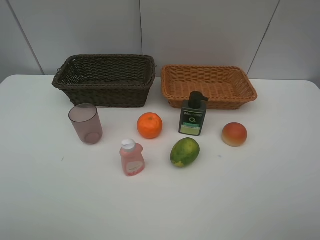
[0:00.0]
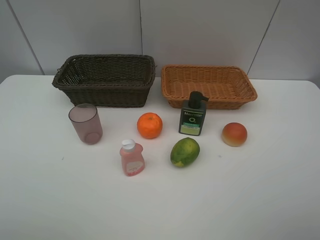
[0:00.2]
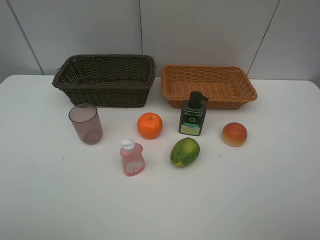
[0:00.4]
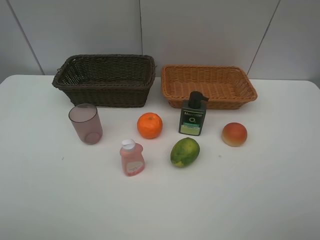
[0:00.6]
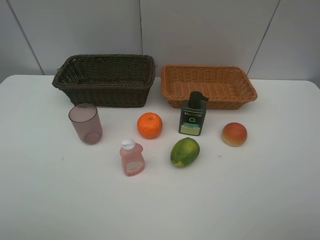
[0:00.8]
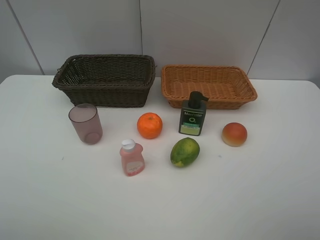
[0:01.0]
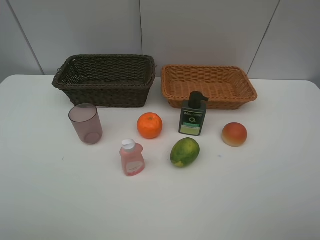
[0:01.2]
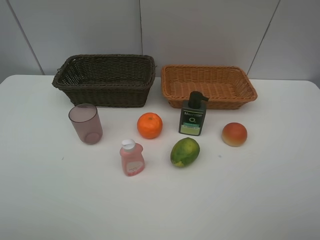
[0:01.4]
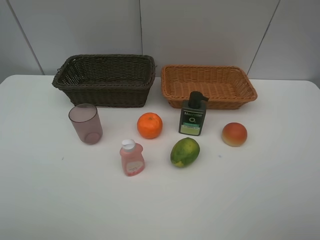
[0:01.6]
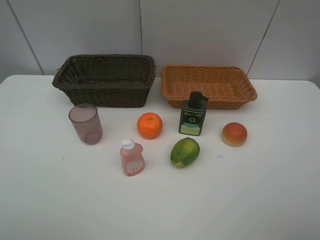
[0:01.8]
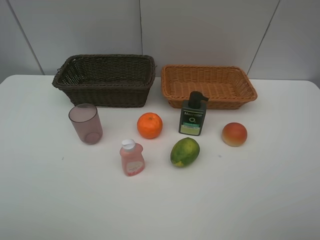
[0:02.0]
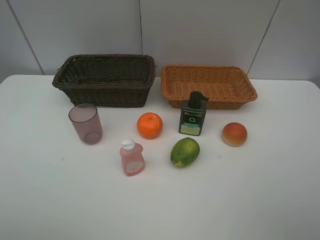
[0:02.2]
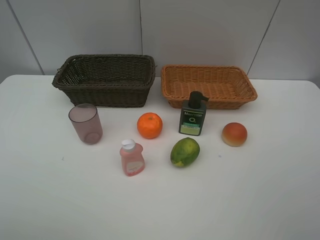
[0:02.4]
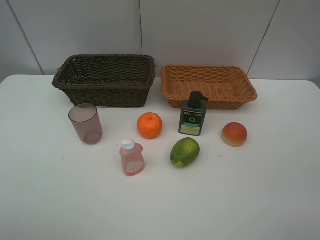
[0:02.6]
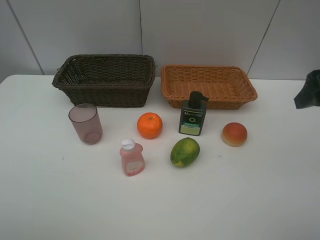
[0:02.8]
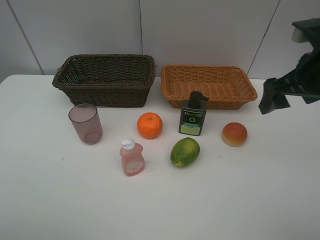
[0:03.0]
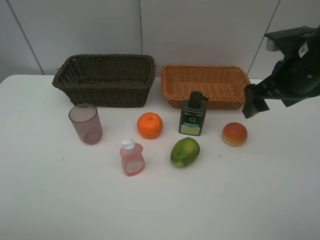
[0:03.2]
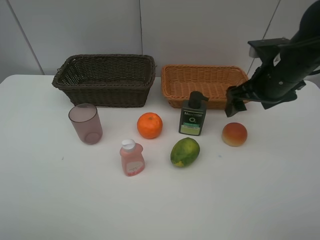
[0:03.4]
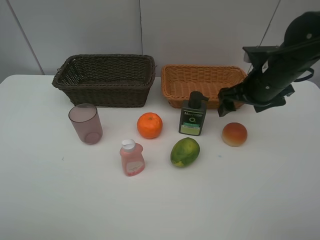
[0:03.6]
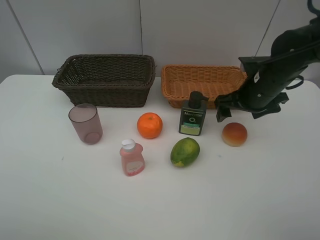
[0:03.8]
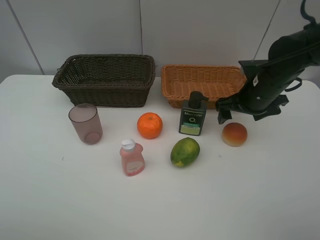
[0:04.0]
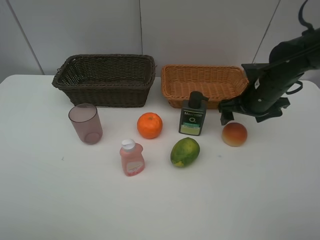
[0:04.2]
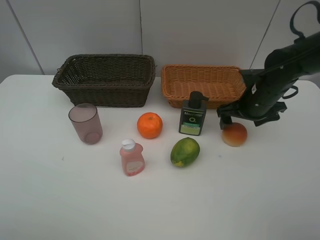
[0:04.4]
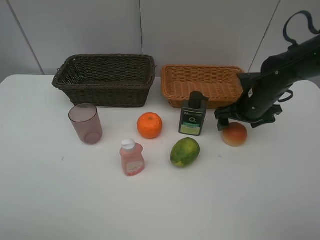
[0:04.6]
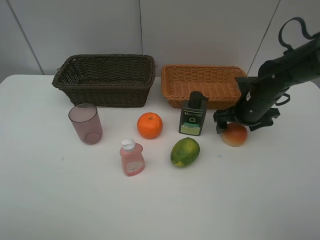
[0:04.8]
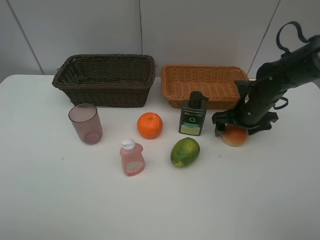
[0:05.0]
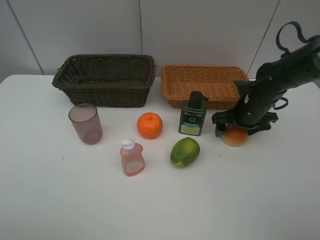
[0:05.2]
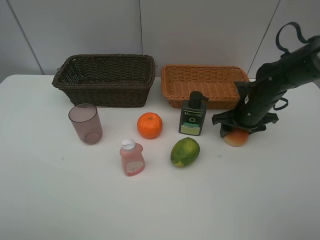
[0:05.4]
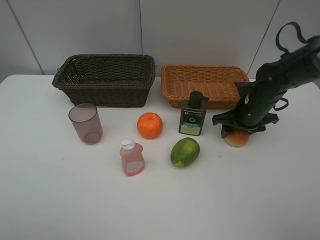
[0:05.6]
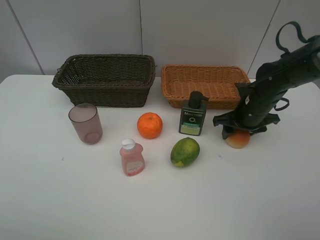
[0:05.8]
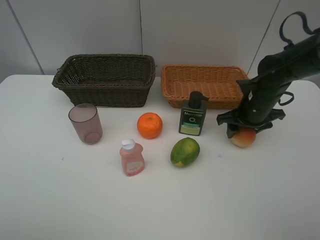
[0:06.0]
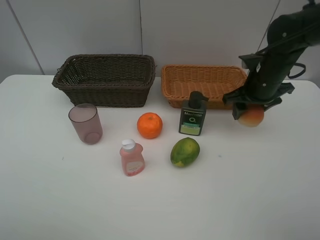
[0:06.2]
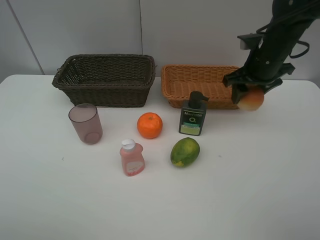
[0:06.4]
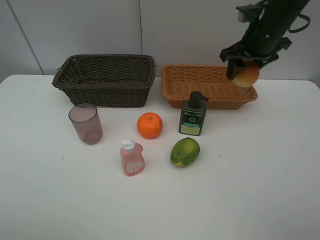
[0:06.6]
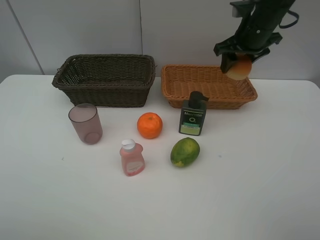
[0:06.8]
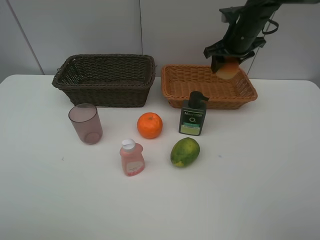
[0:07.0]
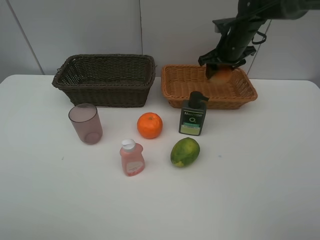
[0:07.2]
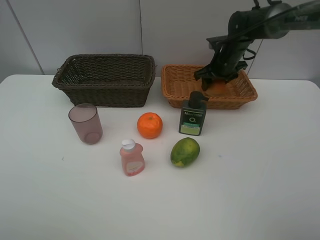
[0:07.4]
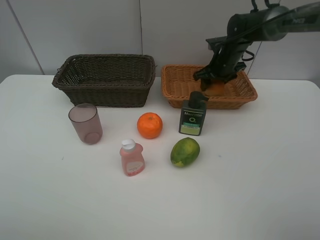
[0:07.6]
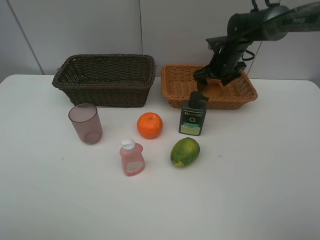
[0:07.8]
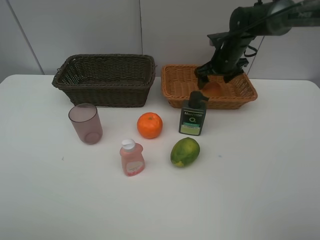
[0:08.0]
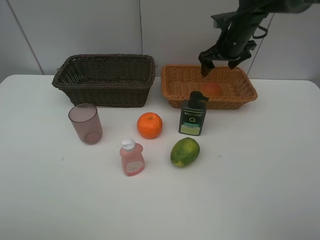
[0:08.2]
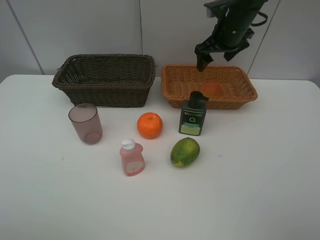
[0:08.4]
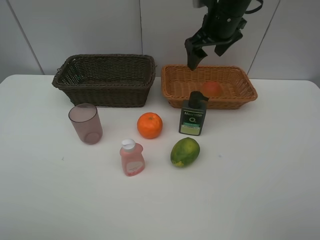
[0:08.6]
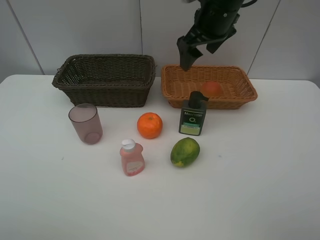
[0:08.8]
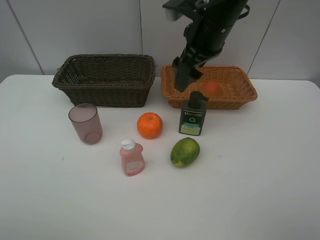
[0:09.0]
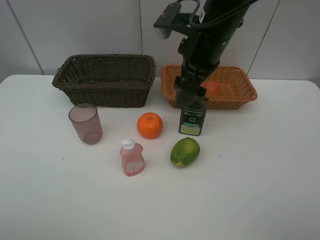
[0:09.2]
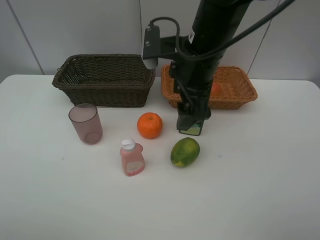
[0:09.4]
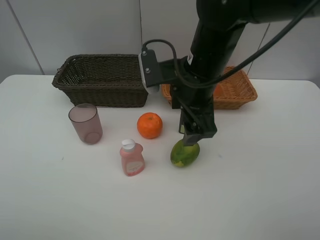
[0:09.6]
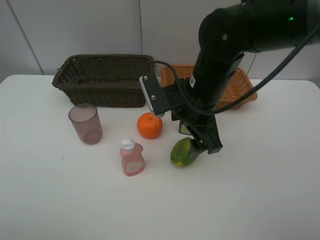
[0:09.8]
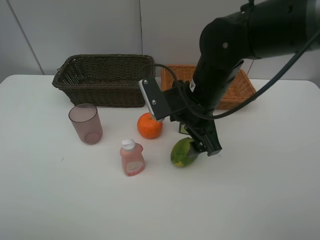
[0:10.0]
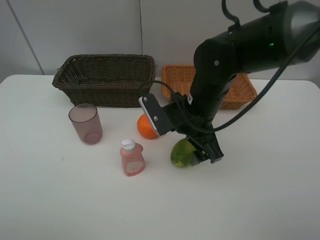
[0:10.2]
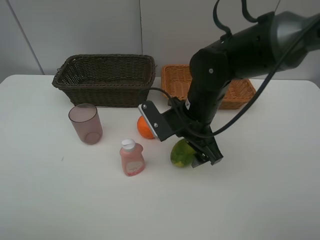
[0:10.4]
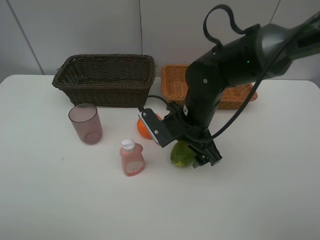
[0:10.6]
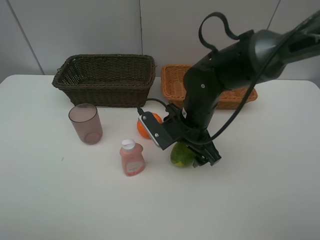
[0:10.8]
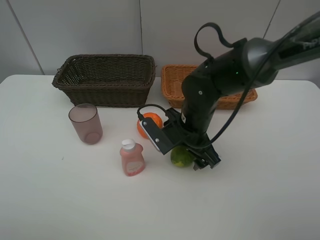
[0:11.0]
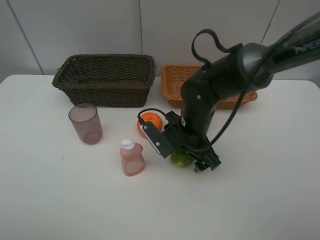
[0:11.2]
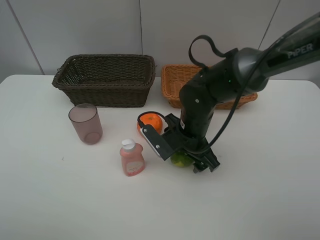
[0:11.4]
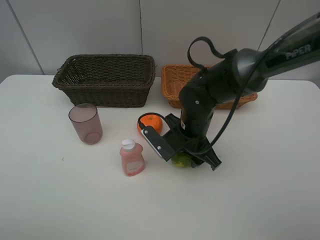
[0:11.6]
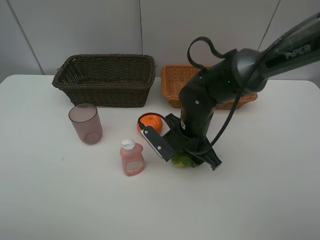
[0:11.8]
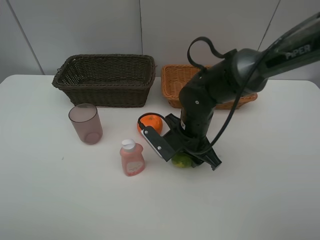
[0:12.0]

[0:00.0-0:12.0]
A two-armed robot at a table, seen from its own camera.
Task of the whole recording: place multiple objects separately in different baskets.
0:00.0 to 0:01.6: Both grippers stay put.
0:01.6 to 0:03.0: The right gripper shifts about 25 cm forward.
0:03.0 to 0:04.4: The right gripper heads downward and forward, covering some 15 cm.
0:04.4 to 0:06.0: The right gripper closes its fingers.
0:06.0 to 0:07.6: The right gripper is displaced forward by approximately 15 cm.
0:07.6 to 0:09.0: The right gripper goes roughly 25 cm backward, upward and to the left, and opens.
0:09.0 to 0:10.4: The right gripper travels downward and backward by about 15 cm.
0:10.4 to 0:12.0: The right gripper goes approximately 5 cm downward, and closes up.

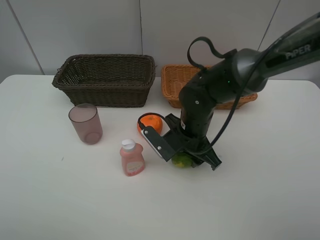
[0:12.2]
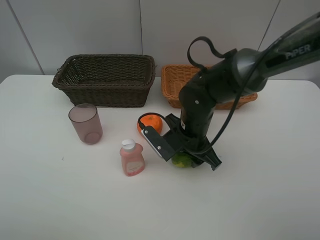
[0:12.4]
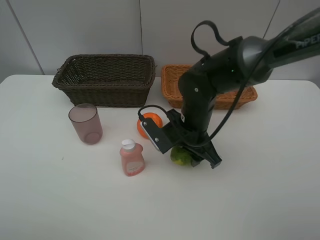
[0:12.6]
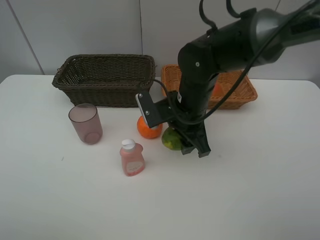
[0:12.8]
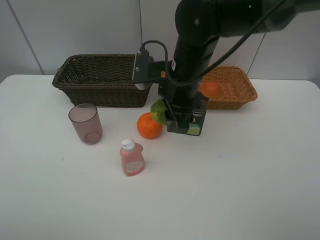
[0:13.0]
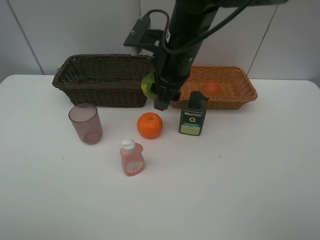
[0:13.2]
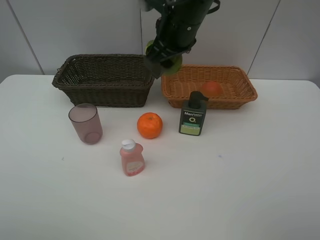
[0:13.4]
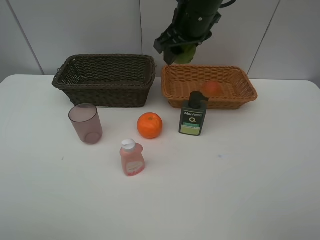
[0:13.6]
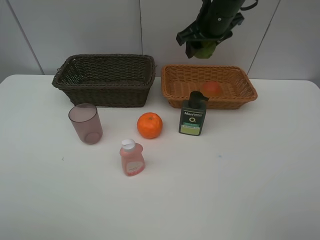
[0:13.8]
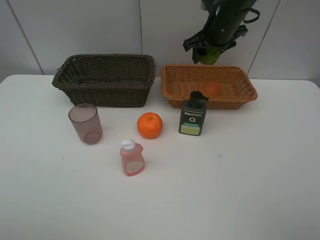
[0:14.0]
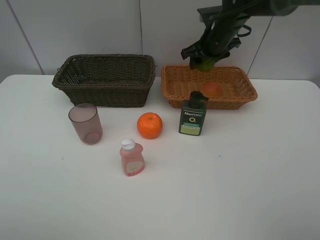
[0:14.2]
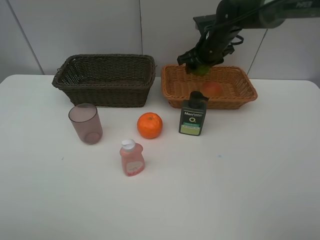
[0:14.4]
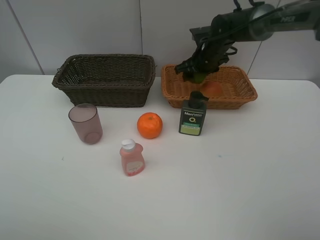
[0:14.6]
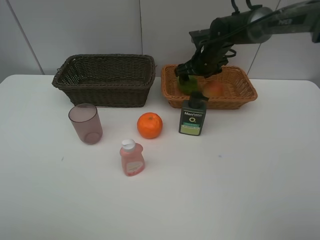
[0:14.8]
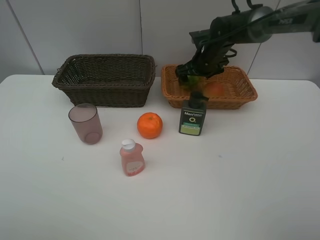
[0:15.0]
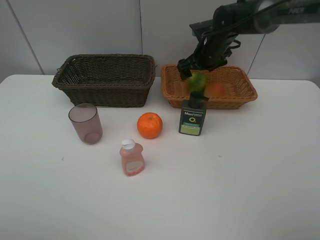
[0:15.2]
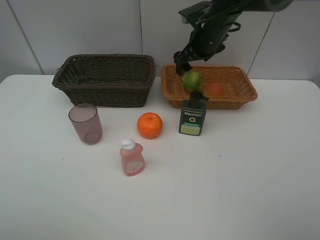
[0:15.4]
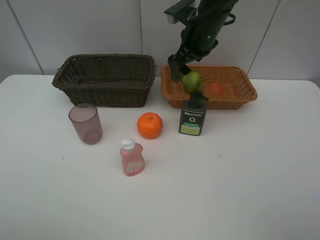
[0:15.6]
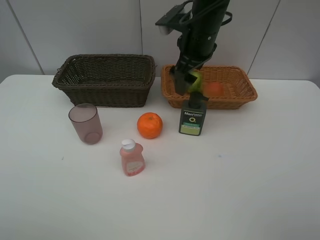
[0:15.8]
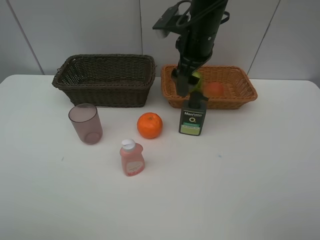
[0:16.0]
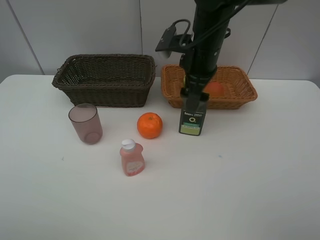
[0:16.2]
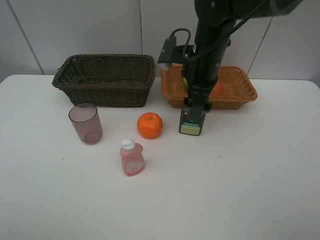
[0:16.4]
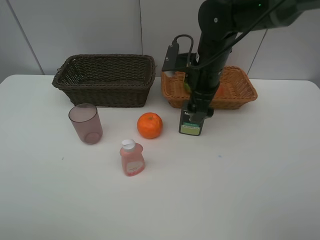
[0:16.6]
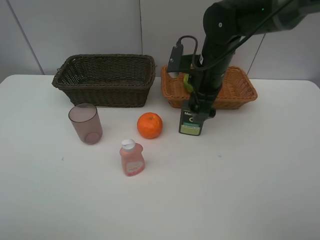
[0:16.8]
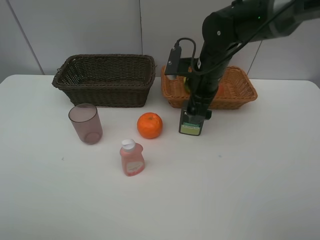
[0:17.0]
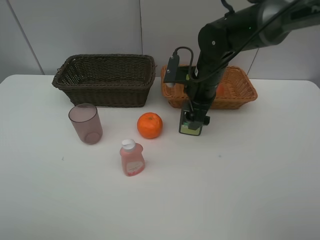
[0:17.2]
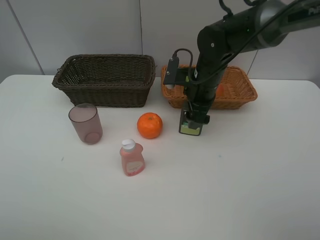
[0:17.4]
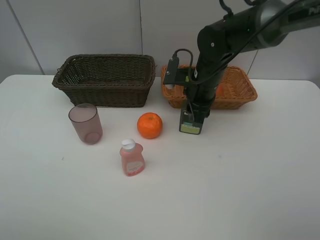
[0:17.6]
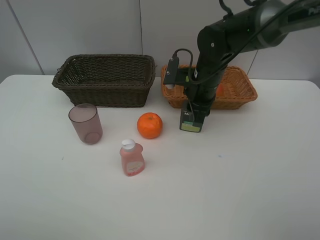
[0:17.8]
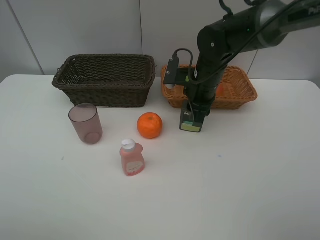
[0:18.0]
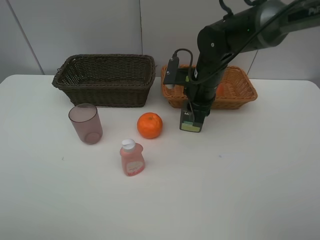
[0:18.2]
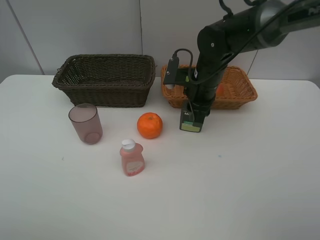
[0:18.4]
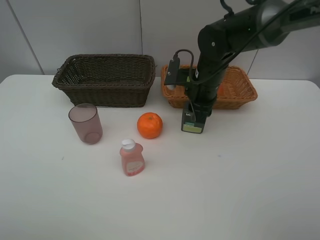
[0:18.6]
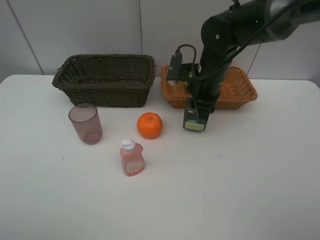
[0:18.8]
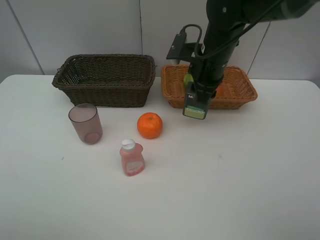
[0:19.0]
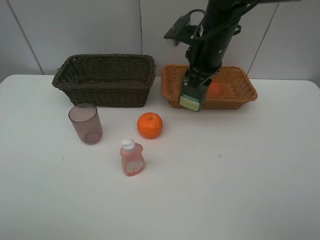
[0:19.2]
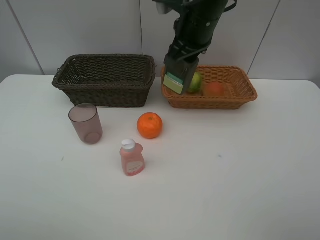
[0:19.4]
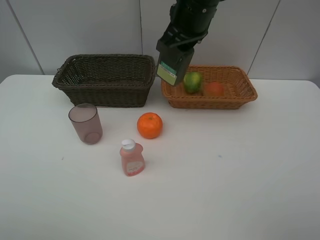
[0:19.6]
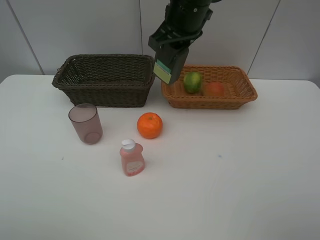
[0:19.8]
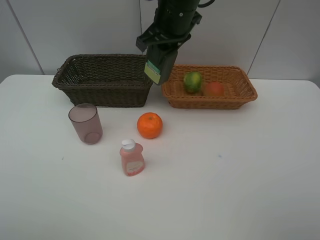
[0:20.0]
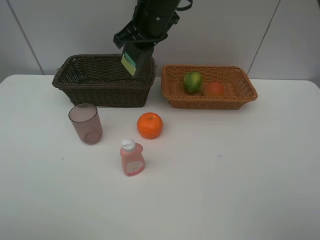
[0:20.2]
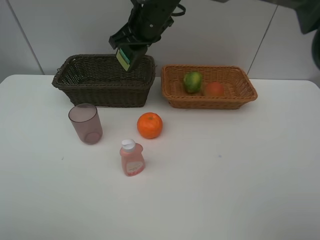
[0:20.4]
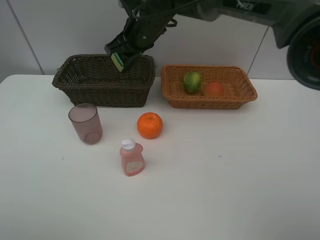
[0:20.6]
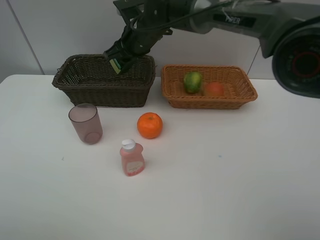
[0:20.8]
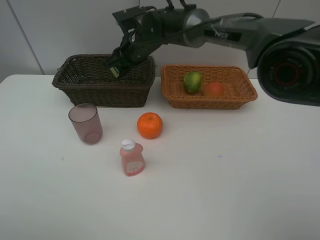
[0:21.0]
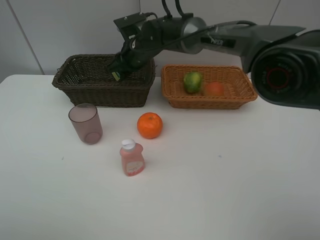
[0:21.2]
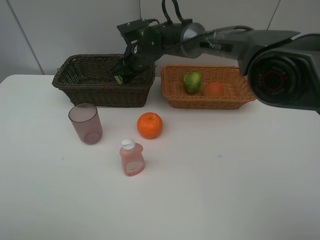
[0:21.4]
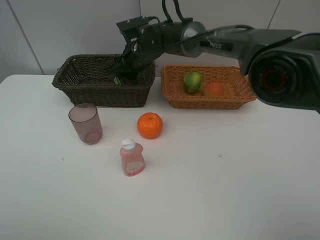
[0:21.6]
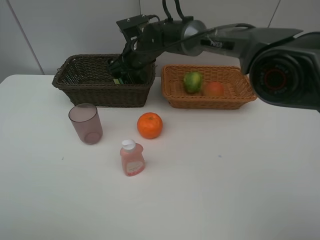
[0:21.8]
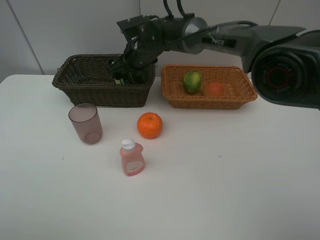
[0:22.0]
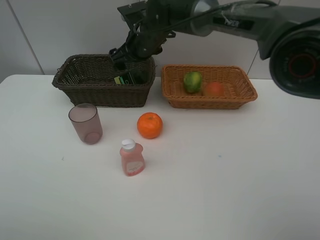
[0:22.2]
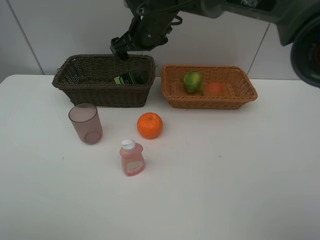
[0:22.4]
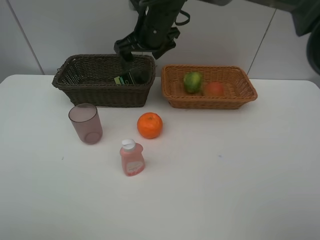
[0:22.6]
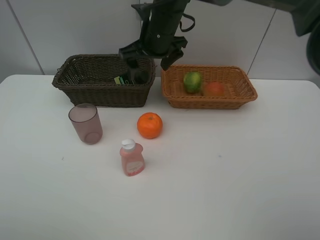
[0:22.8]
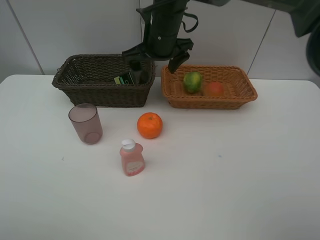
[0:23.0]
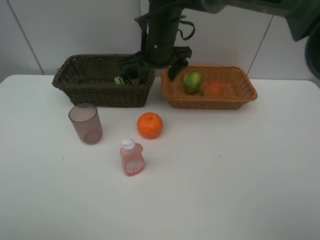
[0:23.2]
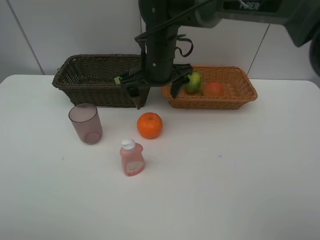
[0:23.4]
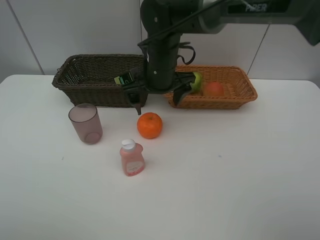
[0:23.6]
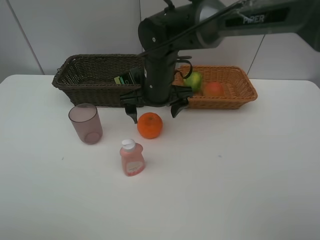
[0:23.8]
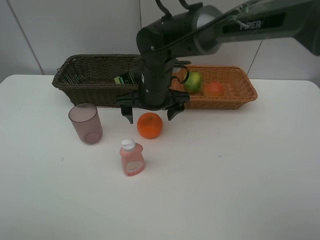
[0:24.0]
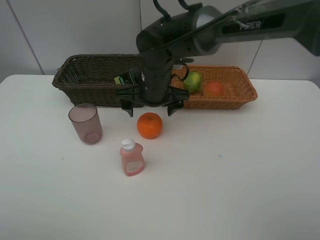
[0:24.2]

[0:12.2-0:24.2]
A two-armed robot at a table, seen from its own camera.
Task of the whole recording: place multiple objects separately in different baskets.
0:12.2 to 0:13.8: The right gripper is displaced upward and forward by some 25 cm.
0:13.8 to 0:15.2: The right gripper shifts approximately 10 cm downward, and opens up.
0:15.2 to 0:16.6: The right gripper moves backward, some 10 cm.
0:16.6 to 0:18.2: The right gripper closes its fingers.
0:18.2 to 0:19.8: The right gripper shifts roughly 15 cm upward.
0:19.8 to 0:21.2: The right gripper heads downward, to the left and forward, covering roughly 20 cm.
0:21.2 to 0:22.6: The right gripper heads upward, covering approximately 10 cm, and opens its fingers.
0:22.6 to 0:24.2: The right gripper goes roughly 10 cm downward and backward.
